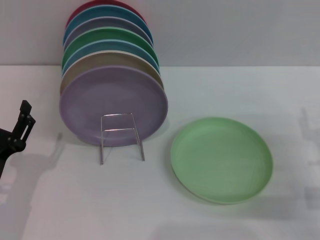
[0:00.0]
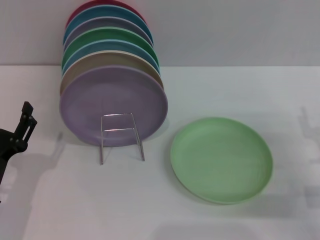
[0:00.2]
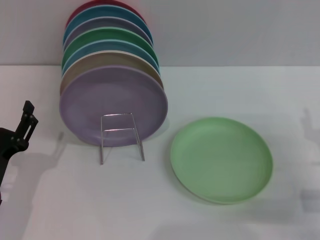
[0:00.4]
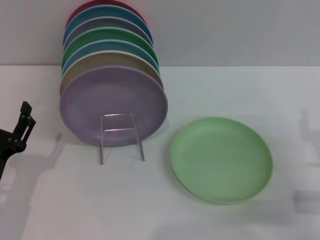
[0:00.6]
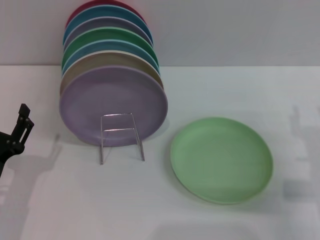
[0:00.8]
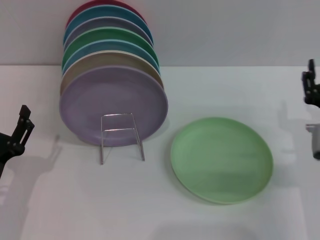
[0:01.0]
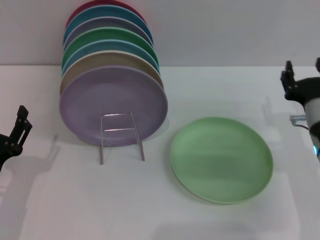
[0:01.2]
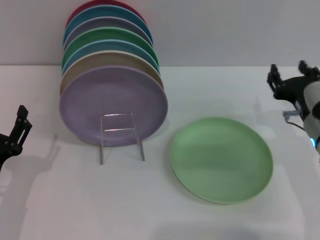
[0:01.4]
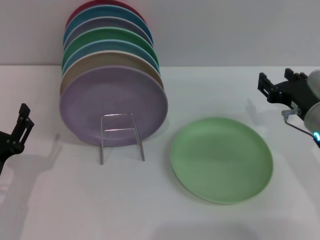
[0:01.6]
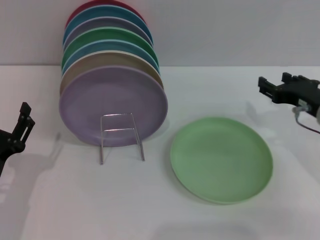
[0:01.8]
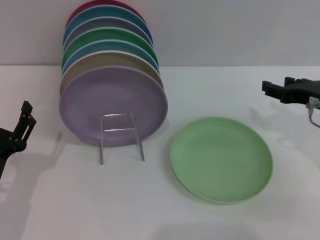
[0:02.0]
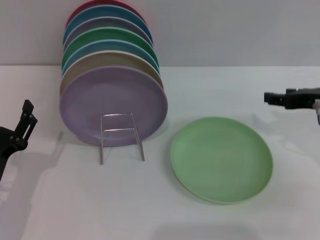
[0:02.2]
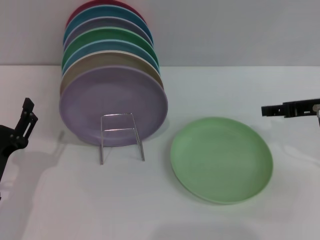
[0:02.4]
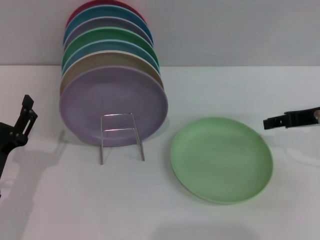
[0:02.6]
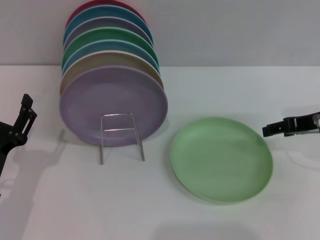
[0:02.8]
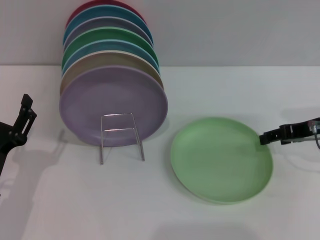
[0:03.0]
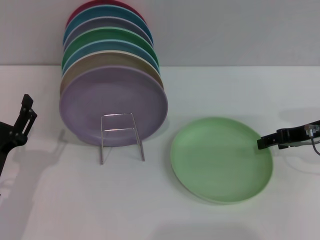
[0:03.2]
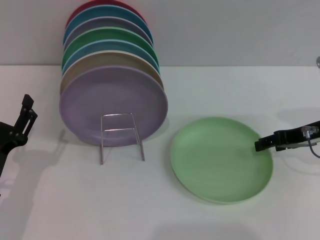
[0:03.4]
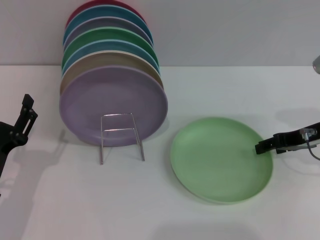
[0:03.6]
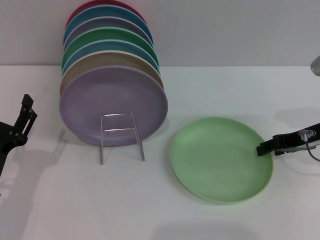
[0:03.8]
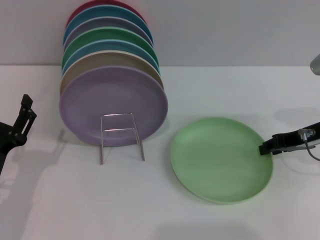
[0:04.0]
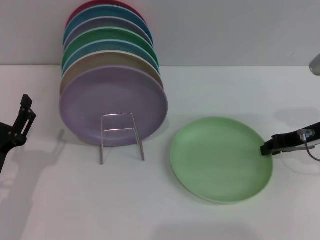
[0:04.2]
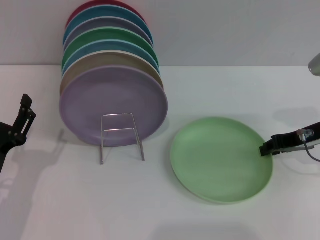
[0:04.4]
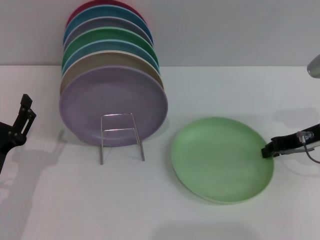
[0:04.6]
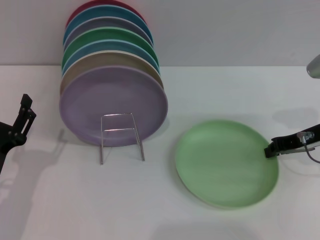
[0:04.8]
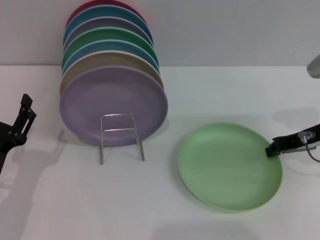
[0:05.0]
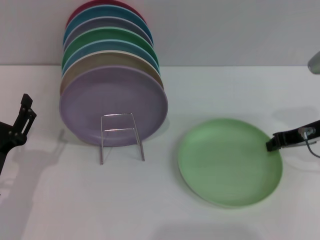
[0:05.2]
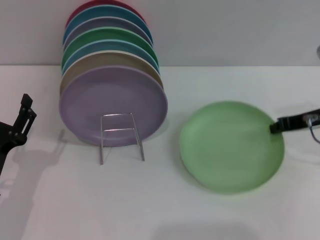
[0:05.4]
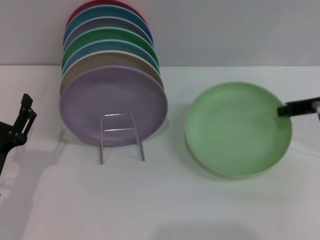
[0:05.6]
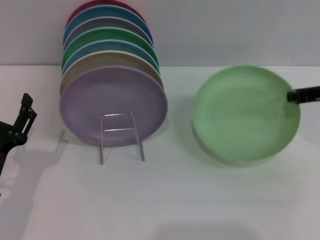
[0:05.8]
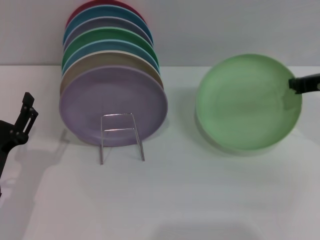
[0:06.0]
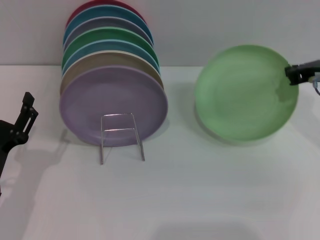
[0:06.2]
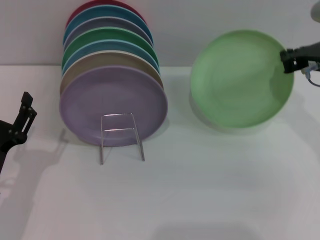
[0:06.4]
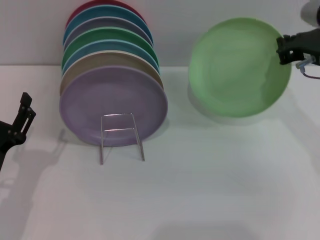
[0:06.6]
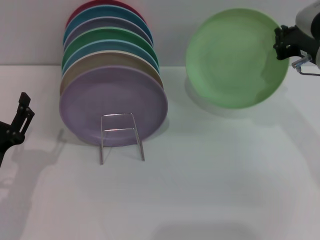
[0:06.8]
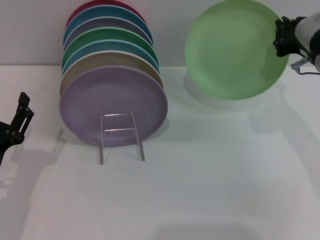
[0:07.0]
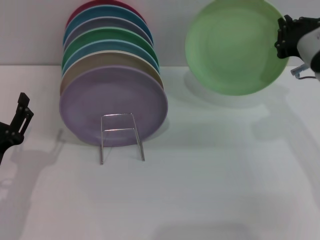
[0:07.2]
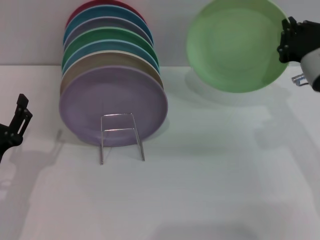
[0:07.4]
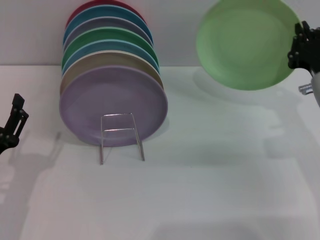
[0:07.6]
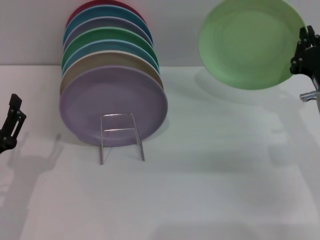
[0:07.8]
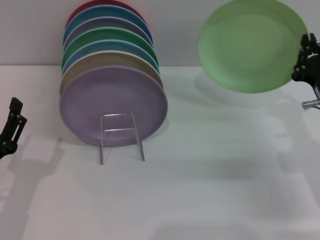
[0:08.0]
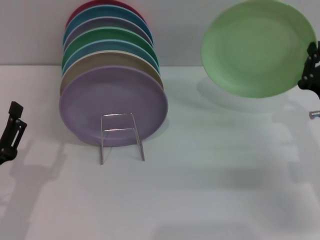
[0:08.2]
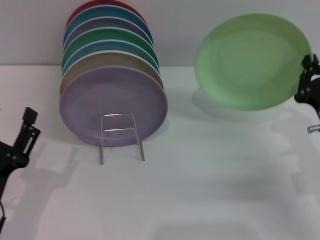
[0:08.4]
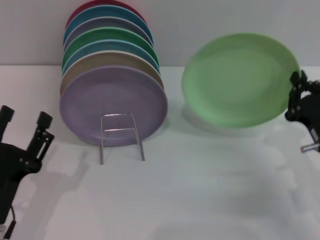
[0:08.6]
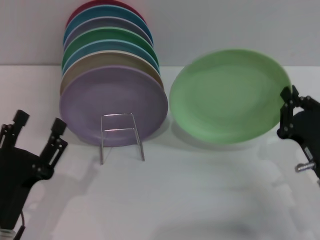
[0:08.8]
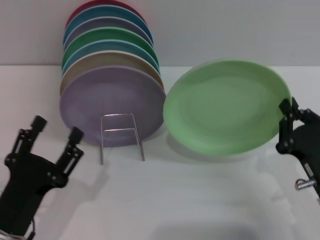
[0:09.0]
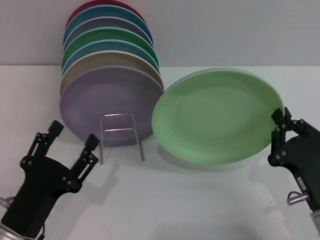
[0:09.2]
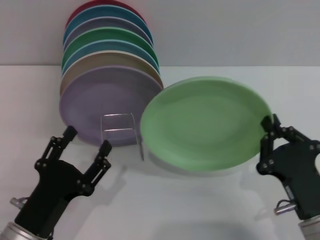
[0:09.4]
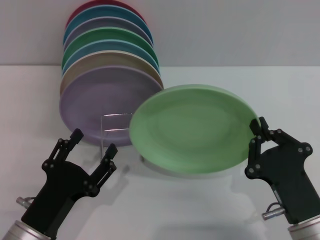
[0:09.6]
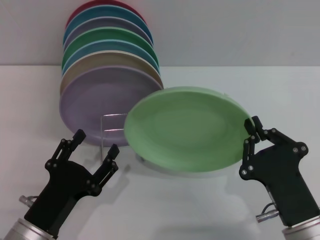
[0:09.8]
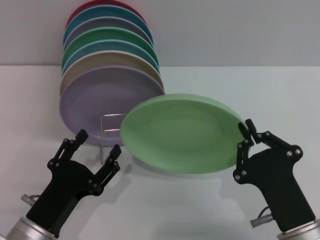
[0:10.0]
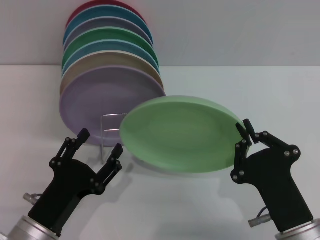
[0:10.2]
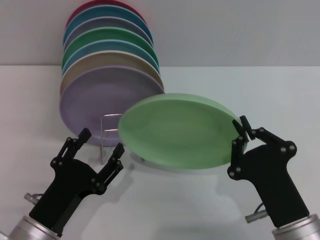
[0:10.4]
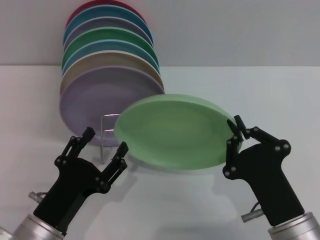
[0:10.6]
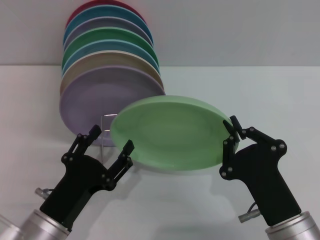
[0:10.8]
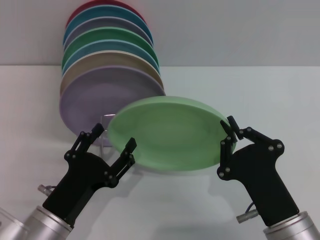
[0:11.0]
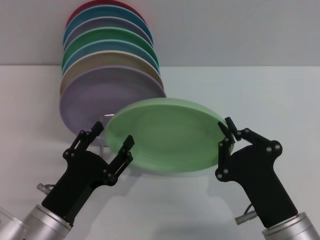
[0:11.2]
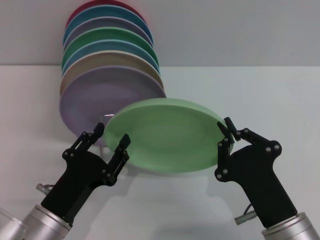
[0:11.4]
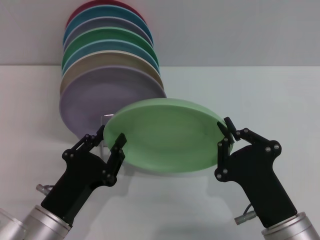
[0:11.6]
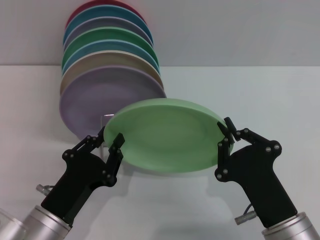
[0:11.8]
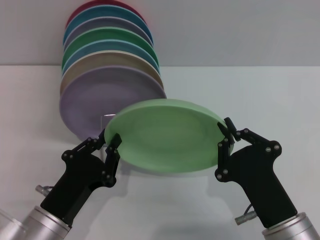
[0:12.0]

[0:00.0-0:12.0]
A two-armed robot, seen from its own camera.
Task of the whole recording: Grip the plate with one hand, pass it to the other, then set it on the shelf.
Step, 0:00.0 to 0:07.8: Pick up the plate with the right gripper.
0:00.0 to 0:01.6: The right gripper is displaced forward, to the left and upward by approximately 10 cm.
0:01.6 to 0:03.0: The right gripper moves some 5 cm.
0:03.0 to 0:04.4: The right gripper closes its fingers.
0:04.4 to 0:06.0: The right gripper is displaced upward by roughly 5 cm.
0:06.0 to 0:07.6: The right gripper goes approximately 5 cm downward.
0:07.6 to 0:09.0: The left gripper changes place by some 5 cm; the right gripper goes approximately 15 cm backward and downward.
0:09.0 to 0:10.4: The right gripper heads to the left, covering roughly 10 cm.
0:10.4 to 0:12.0: The left gripper closes up.

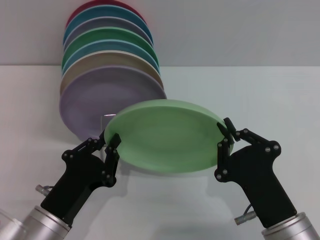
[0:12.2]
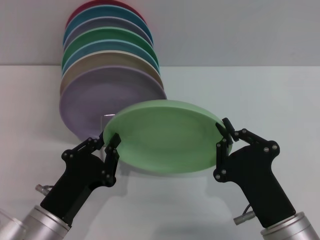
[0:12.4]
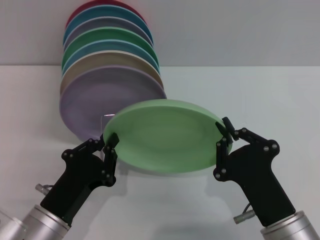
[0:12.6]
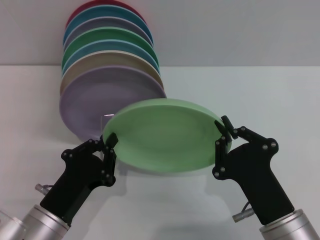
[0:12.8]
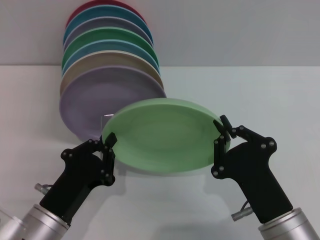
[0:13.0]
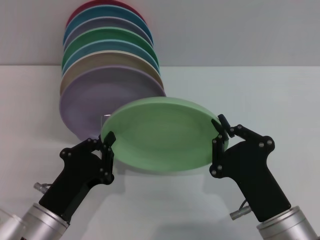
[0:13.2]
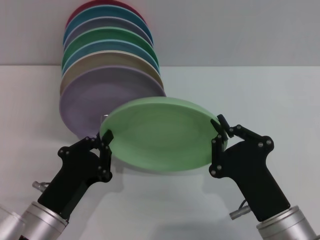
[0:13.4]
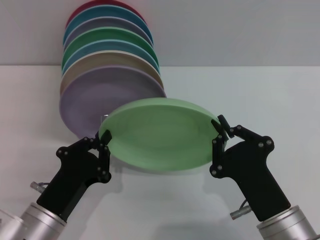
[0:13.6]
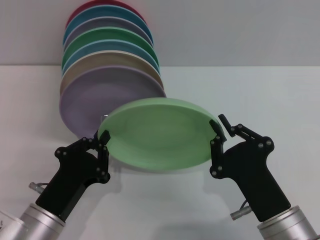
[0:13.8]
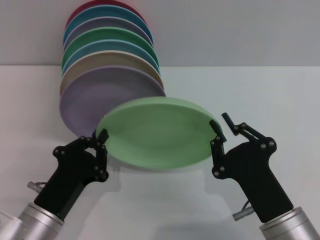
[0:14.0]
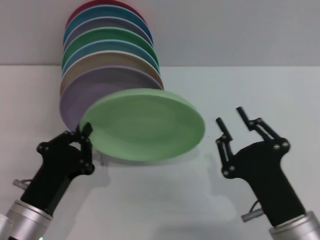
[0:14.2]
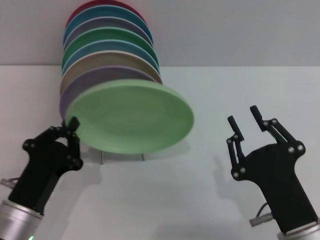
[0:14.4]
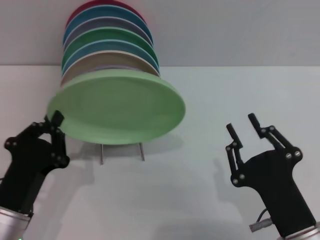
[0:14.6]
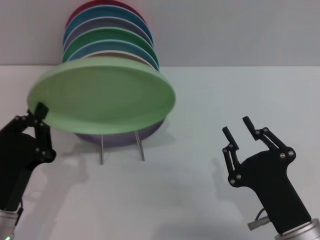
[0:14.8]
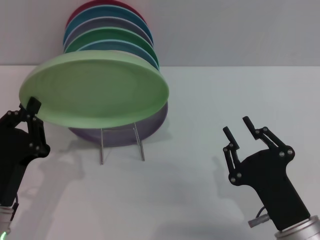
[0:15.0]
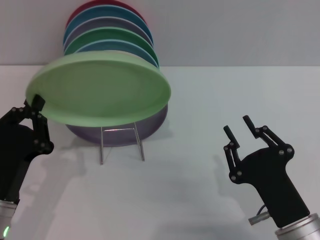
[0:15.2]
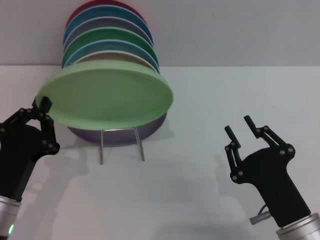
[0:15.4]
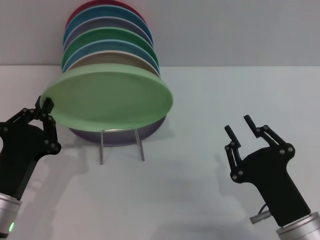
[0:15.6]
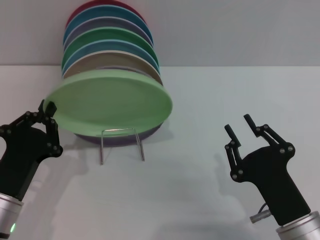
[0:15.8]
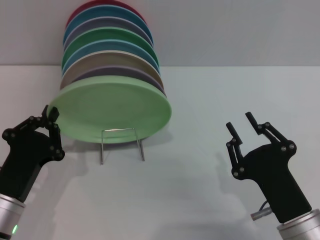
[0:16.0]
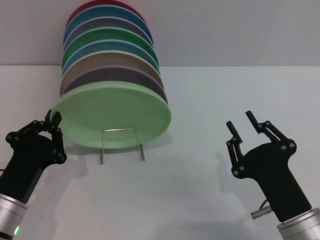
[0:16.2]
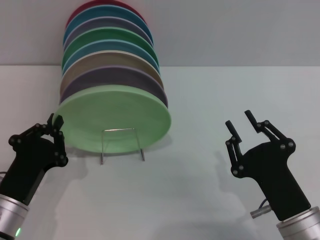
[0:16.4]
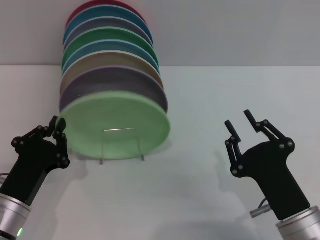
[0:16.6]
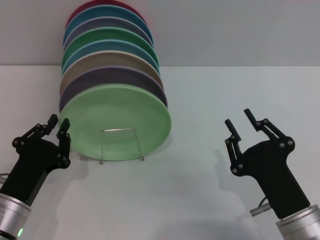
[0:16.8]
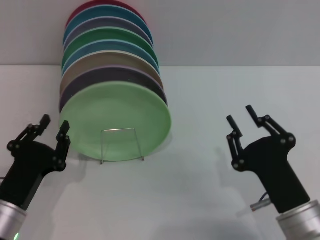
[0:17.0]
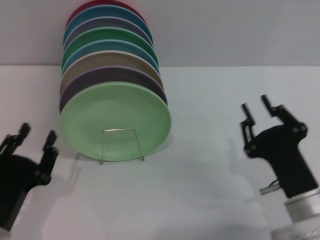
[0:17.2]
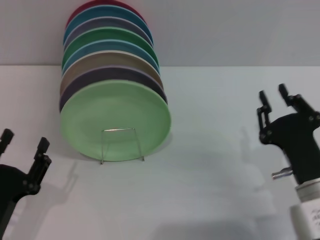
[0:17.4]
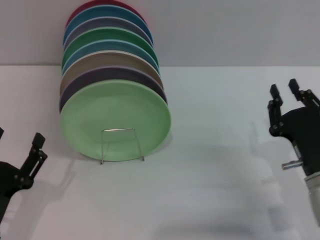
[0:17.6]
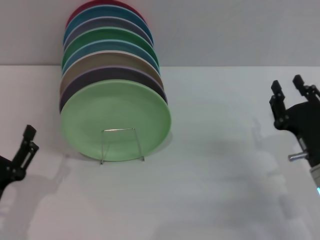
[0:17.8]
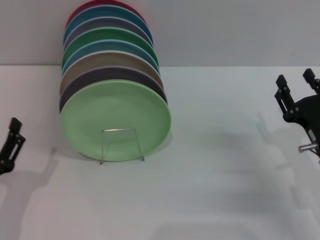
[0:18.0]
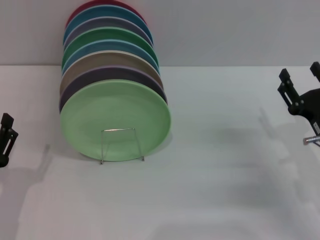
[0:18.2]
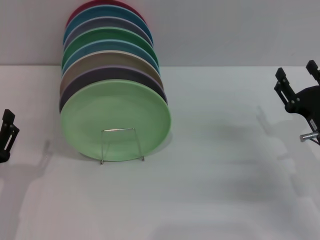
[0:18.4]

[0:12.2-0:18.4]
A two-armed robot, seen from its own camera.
Task of the whole recording: Grip the plate with one hand, pass it to the other, then set it on the shelf.
Step, 0:12.2 to 0:14.2: Pass the plate from the right gripper to the left gripper.
Step, 0:14.4 to 0:17.0: Place the plate on the shelf with the left gripper.
0:12.2 to 0:13.8: The grippers make only small movements.
0:13.8 to 0:15.4: The right gripper opens up.
0:15.4 to 0:16.8: The grippers stay close to where they were, moving slightly.
0:16.8 to 0:18.4: The right gripper heads forward and to the right, covering roughly 15 cm, and opens, while the left gripper opens.
